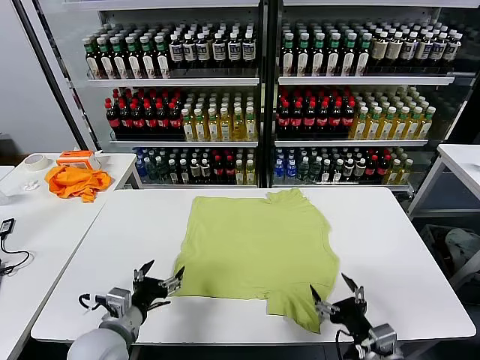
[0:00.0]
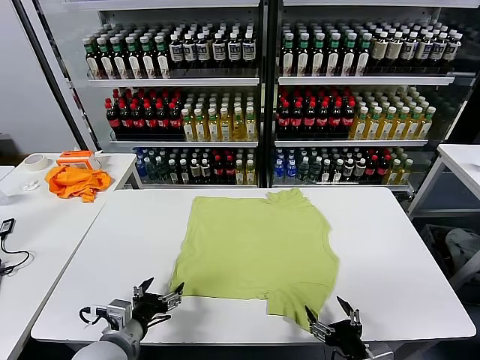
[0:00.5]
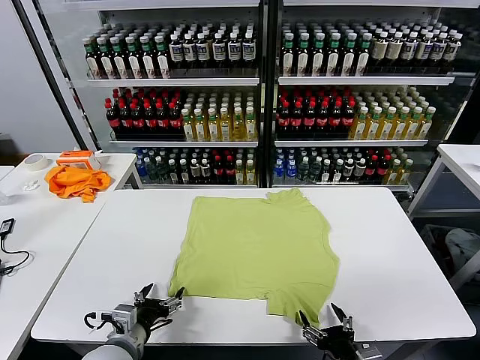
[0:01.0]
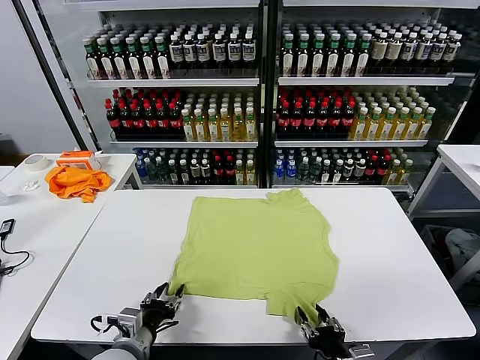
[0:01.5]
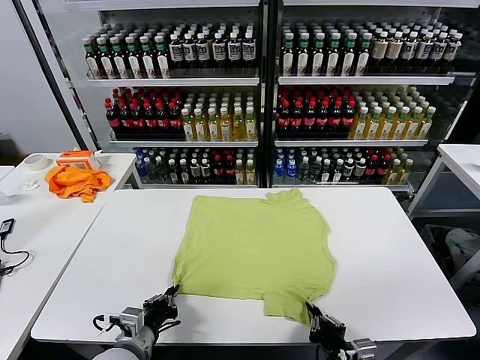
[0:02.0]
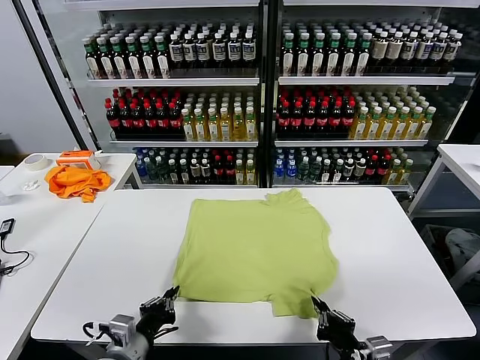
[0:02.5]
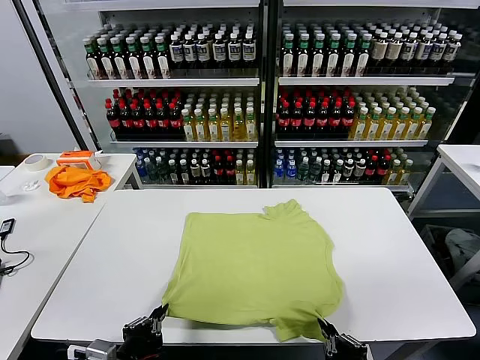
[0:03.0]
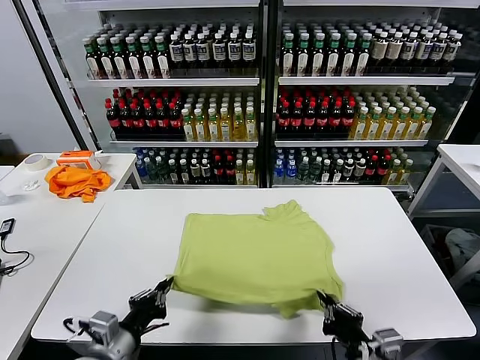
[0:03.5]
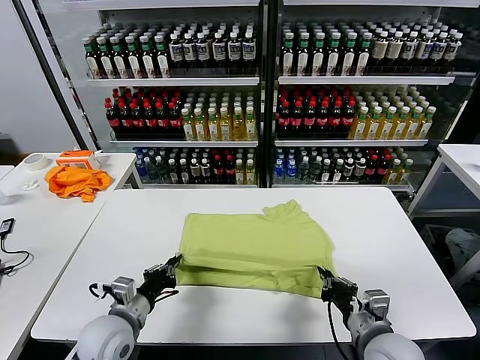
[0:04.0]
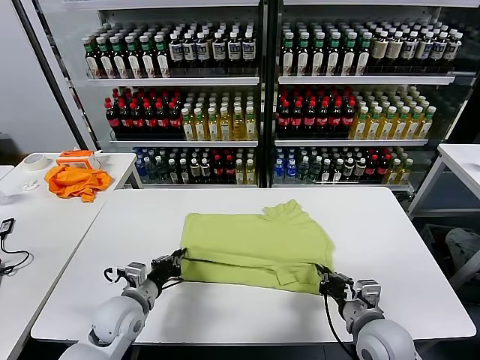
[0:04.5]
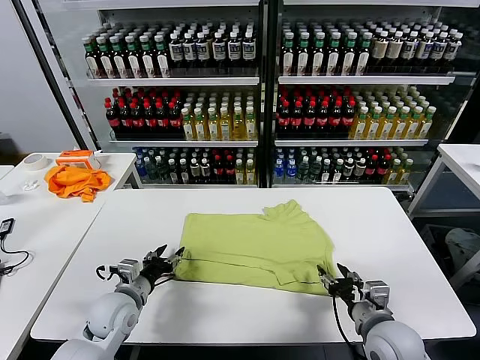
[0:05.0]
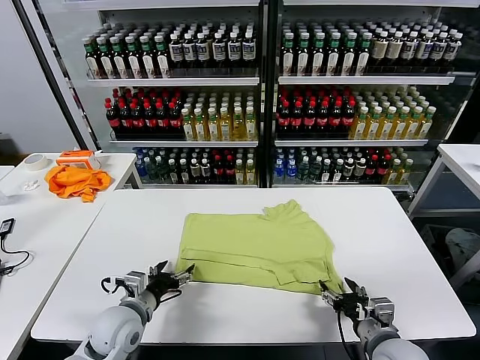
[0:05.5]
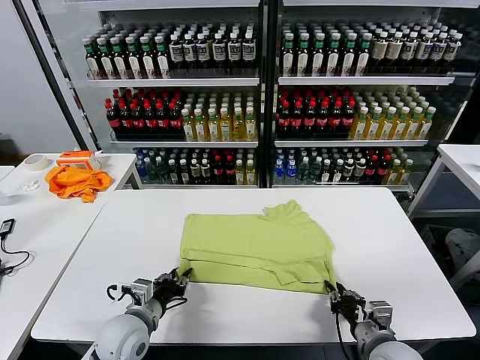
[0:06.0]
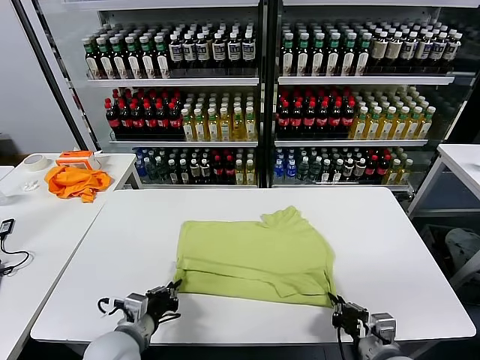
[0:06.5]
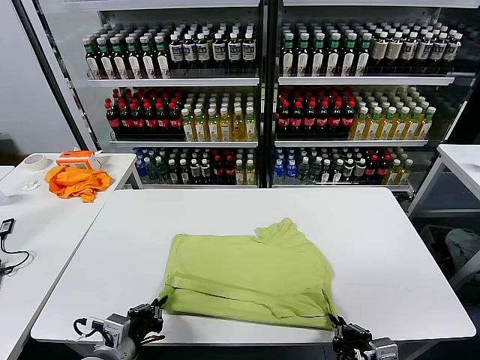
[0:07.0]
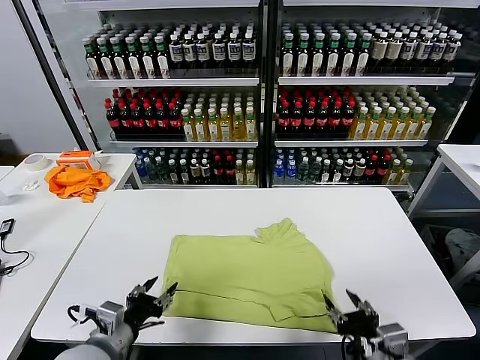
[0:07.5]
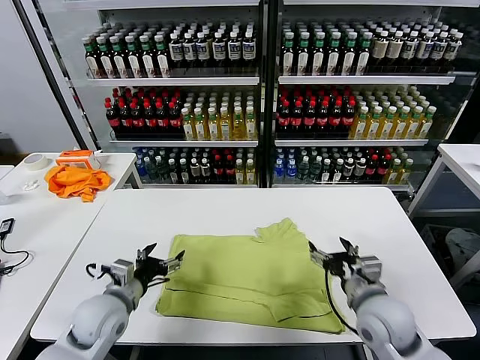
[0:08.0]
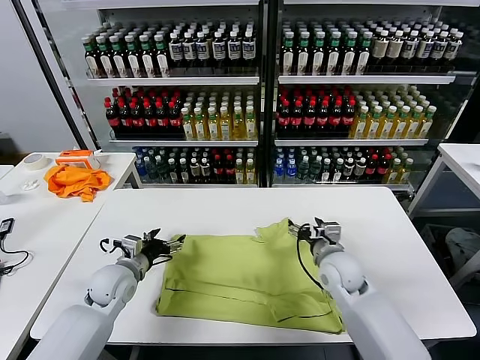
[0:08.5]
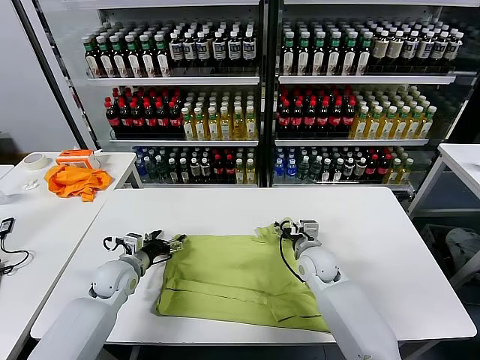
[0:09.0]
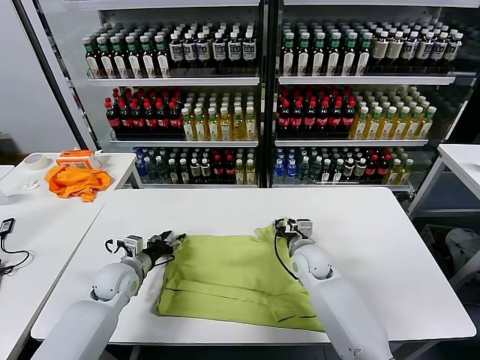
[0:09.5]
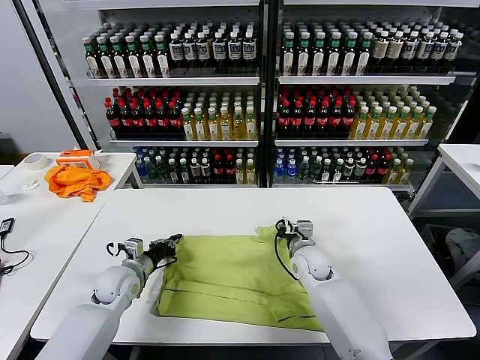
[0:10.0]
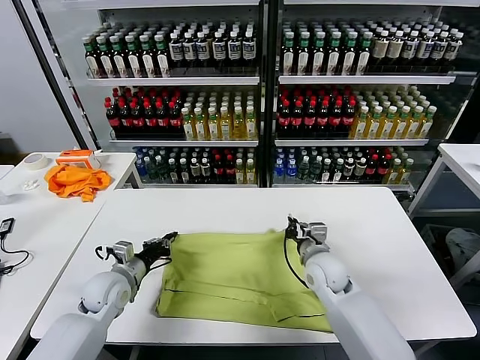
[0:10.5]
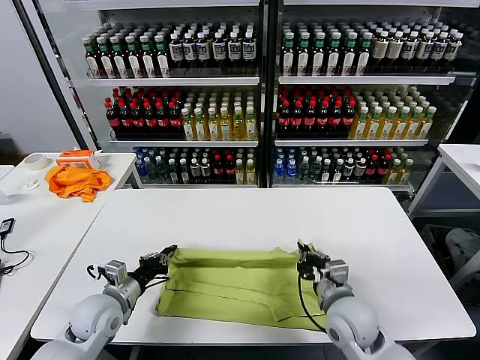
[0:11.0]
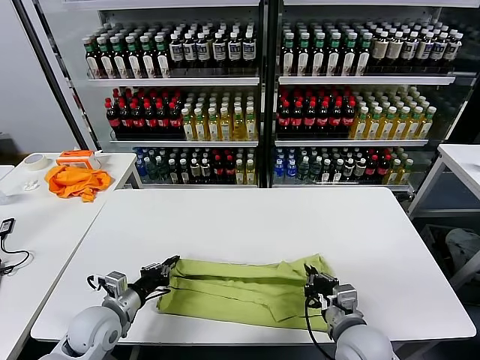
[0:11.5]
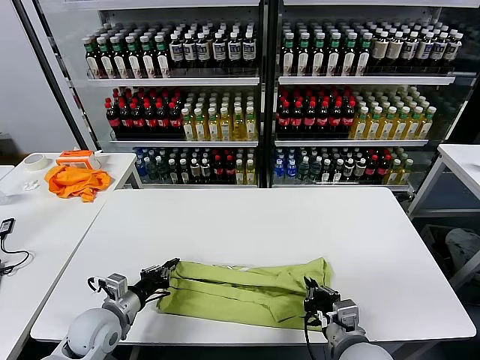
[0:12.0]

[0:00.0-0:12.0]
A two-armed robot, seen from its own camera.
Task of the whole recording: fold and organize the clothes.
Step, 0:00.0 to 0:02.0: use both grippers simultaneously to clamp the lower edge of the clothing fabric.
Step, 0:02.5 to 0:04.5: use both grippers to drag the lower edge of the fabric forward and fold it over the upper edge.
Step, 0:05.0 to 0:07.0: Drag the clothes downward with both gripper.
Step, 0:07.5 to 0:10.0: use both grippers simultaneously to clamp the upper edge of the clothing fabric.
0:02.0 to 0:04.0: Both grippers move forward, about 5 cm.
0:04.0 to 0:06.0: The left gripper opens, then closes once more. The right gripper shifts by roughly 5 cm, and opens and closes again.
0:06.0 to 0:08.0: The left gripper moves about 10 cm backward and comes back, and opens up. Meanwhile the right gripper is displaced forward and upward by about 10 cm, and opens.
0:08.0 to 0:10.0: The right gripper heads forward, downward and to the left, covering roughly 15 cm, and closes. Meanwhile the left gripper goes roughly 10 cm forward and downward, and closes its fingers.
0:10.0 to 0:12.0: The right gripper heads backward, covering approximately 25 cm; the left gripper travels backward by some 10 cm.

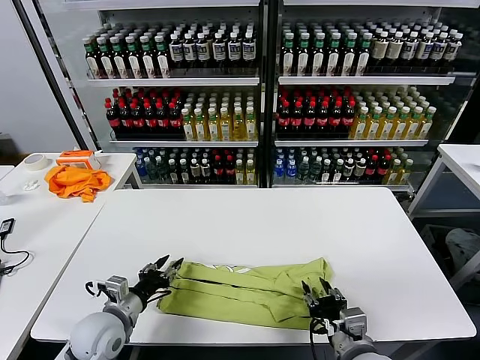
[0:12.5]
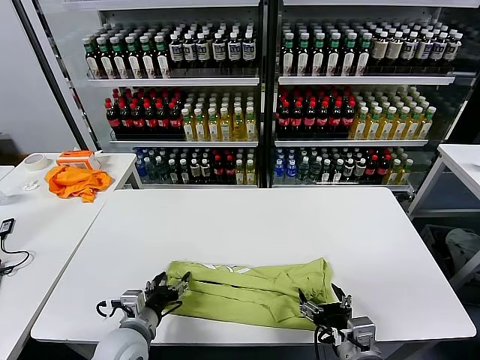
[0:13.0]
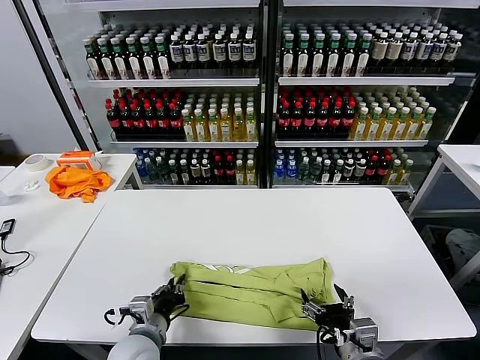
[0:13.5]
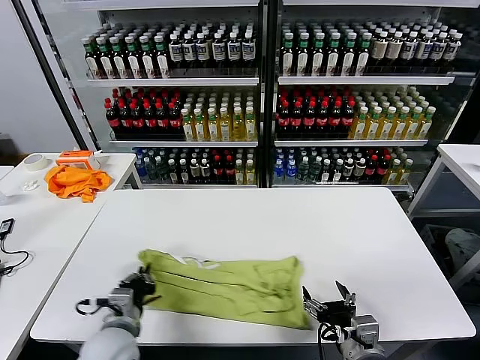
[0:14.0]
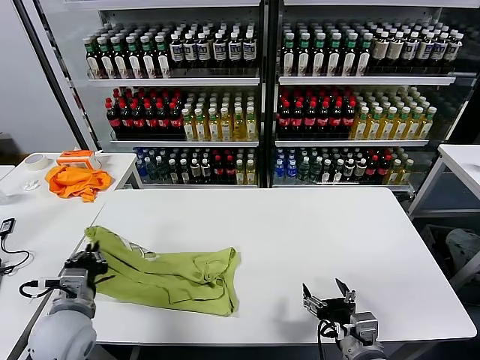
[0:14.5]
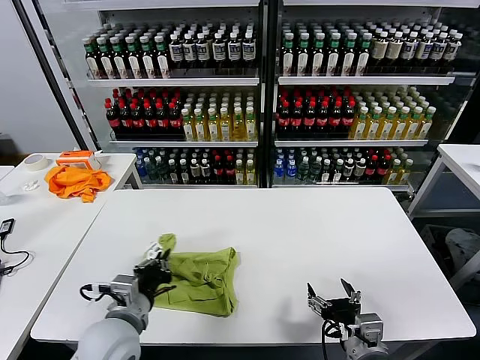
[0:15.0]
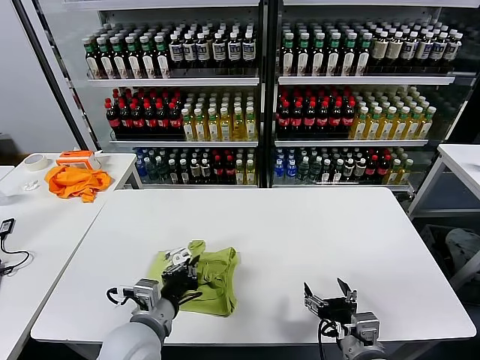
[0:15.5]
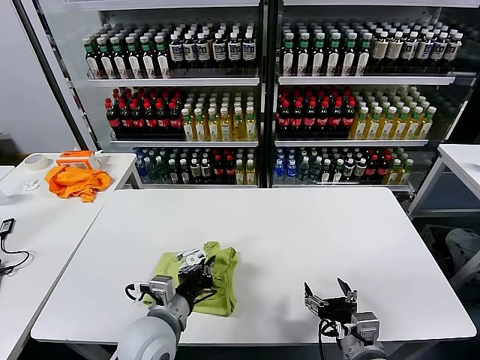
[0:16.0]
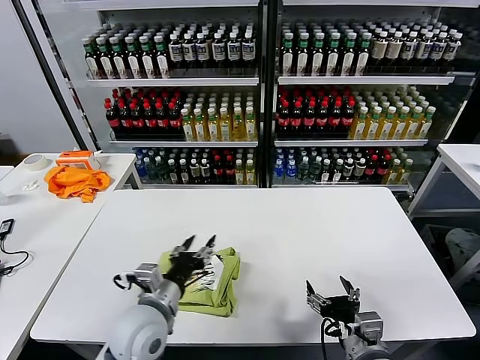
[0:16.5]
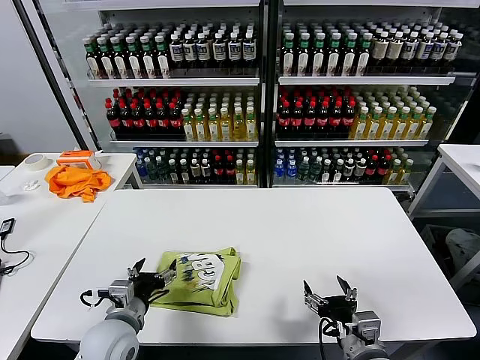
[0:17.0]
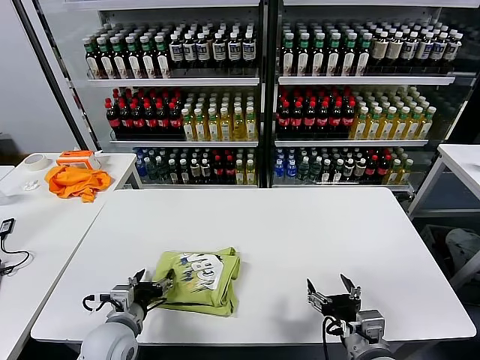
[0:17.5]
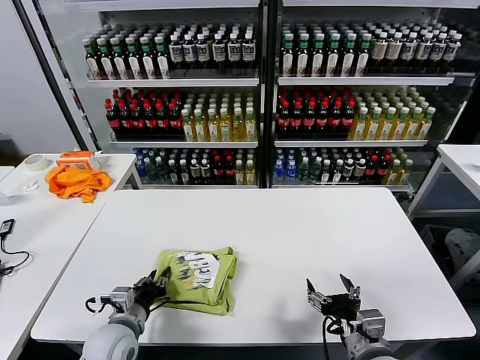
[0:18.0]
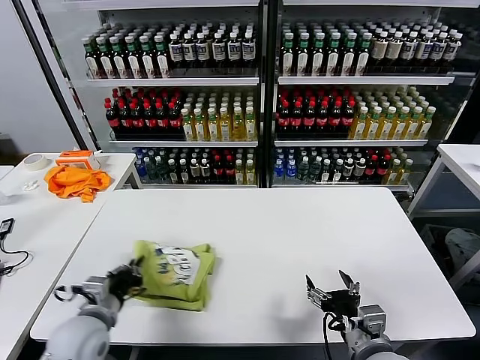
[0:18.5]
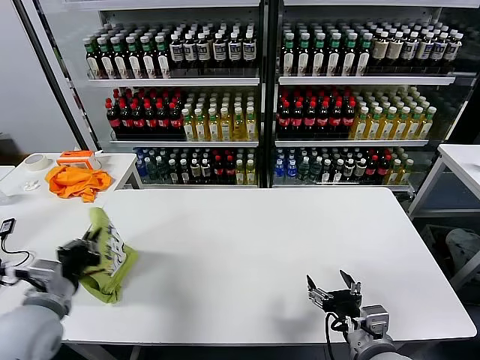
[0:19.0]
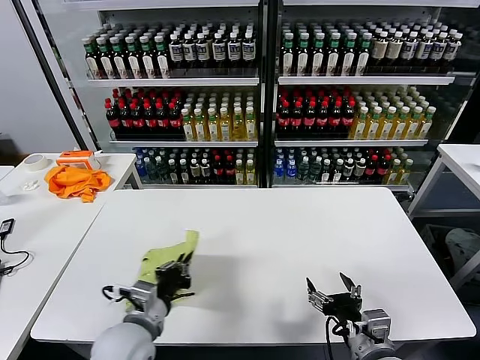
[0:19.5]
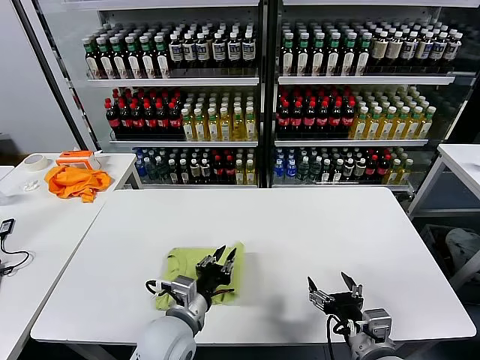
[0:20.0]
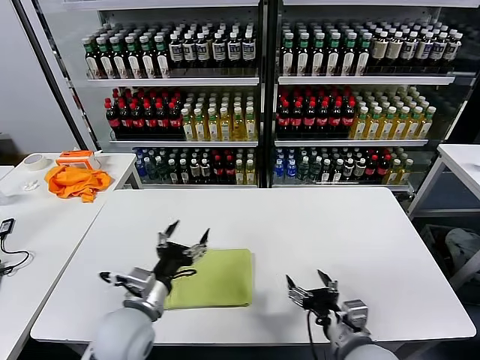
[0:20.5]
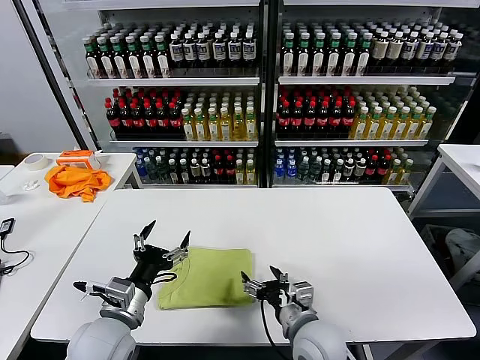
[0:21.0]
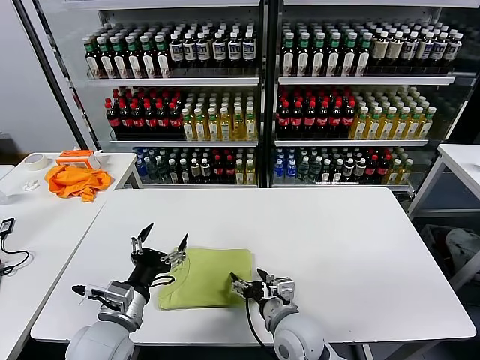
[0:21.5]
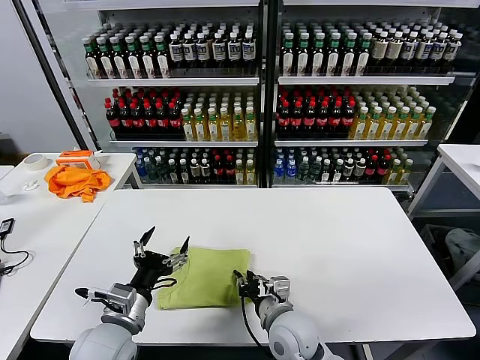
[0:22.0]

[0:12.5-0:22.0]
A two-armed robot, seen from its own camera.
Task of the whole recording: fold and organize the clothes.
Step, 0:13.0 to 0:13.5: use the left gripper to clamp the left edge of the fabric.
Step, 0:14.0 to 0:16.0: use the left gripper to drag the left edge of the fabric to the left and folds it over the right edge.
Step, 0:16.5 to 0:20.0: Flip the folded clothes over with left gripper.
0:12.5 to 0:14.5: The left gripper travels upward by roughly 5 cm, moves approximately 10 cm to the right and comes back, and closes its fingers. Meanwhile the right gripper opens.
0:14.5 to 0:16.5: The left gripper travels to the right by roughly 15 cm, and opens up.
0:16.5 to 0:18.0: The left gripper travels to the left and downward by approximately 15 cm, and opens and closes again.
0:18.0 to 0:20.0: The left gripper shifts approximately 15 cm to the right and upward.
0:20.0 to 0:22.0: The right gripper is displaced to the left and forward by roughly 20 cm, and closes. Meanwhile the left gripper travels to the left by approximately 10 cm, and opens.

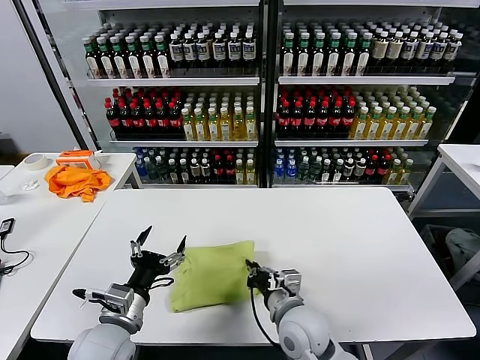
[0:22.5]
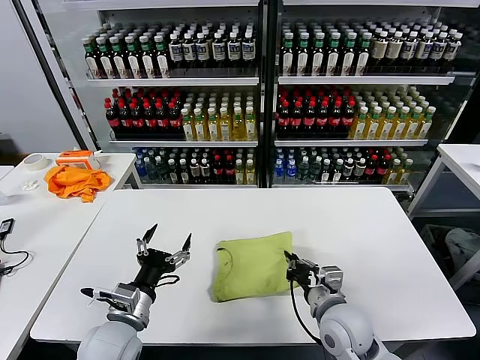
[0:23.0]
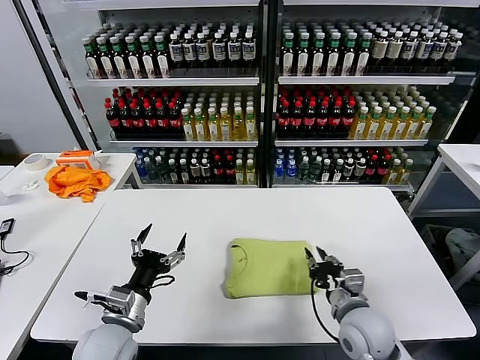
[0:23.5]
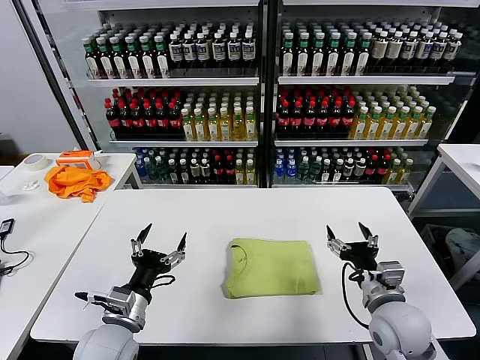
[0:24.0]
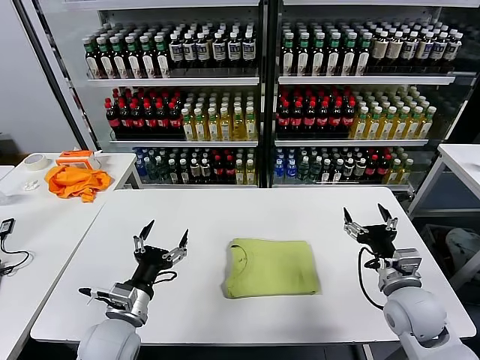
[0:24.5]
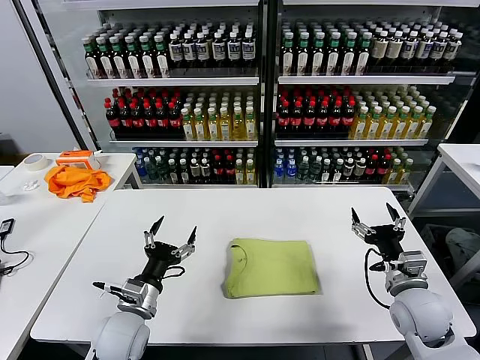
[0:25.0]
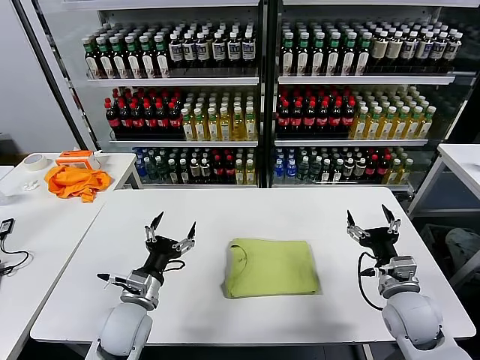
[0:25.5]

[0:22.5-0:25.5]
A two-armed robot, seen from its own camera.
Task of the whole recording: fold and organize the clothes.
0:22.5 to 0:24.0: The right gripper goes approximately 15 cm to the right, and opens its fingers.
0:24.0 to 0:25.5: The left gripper goes approximately 5 cm forward. Meanwhile the right gripper shifts approximately 5 cm to the right.
